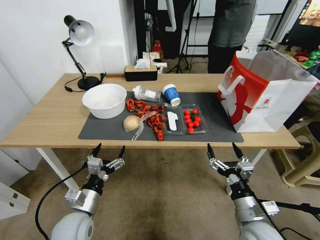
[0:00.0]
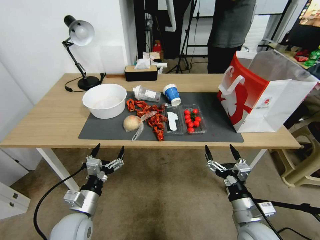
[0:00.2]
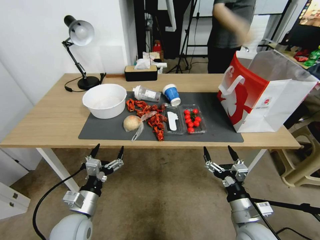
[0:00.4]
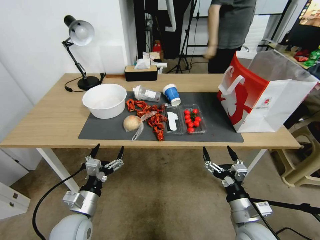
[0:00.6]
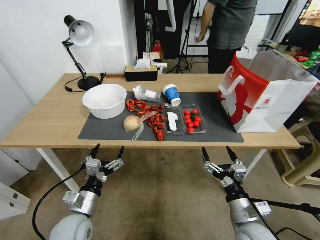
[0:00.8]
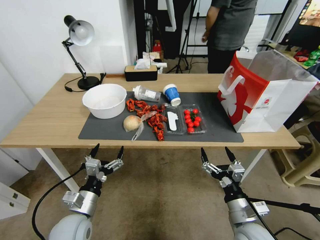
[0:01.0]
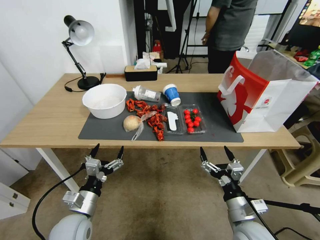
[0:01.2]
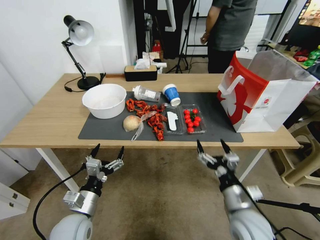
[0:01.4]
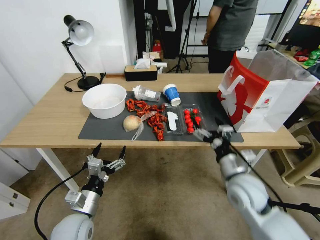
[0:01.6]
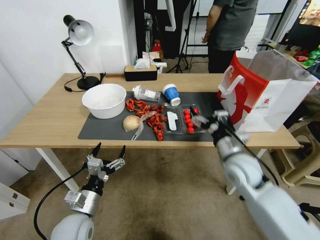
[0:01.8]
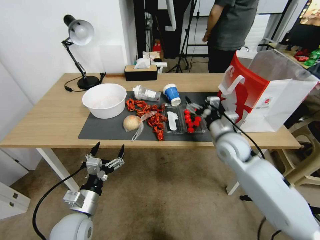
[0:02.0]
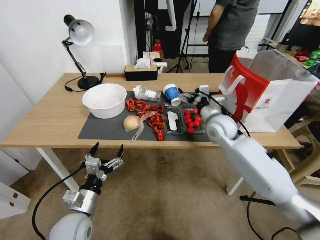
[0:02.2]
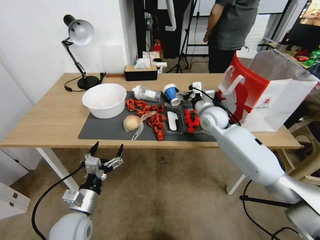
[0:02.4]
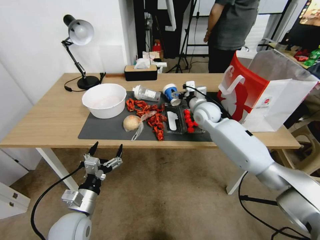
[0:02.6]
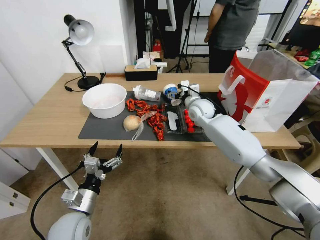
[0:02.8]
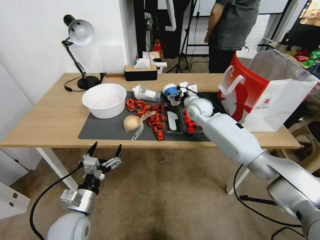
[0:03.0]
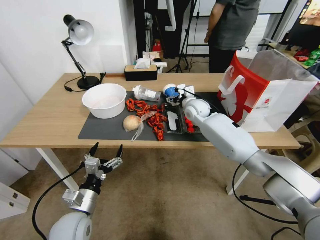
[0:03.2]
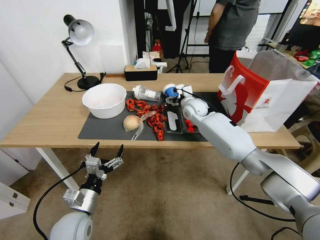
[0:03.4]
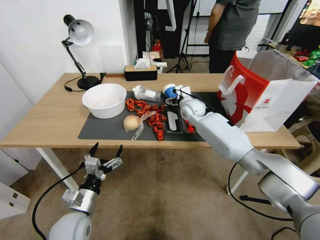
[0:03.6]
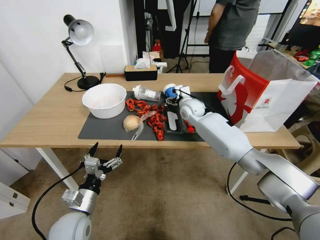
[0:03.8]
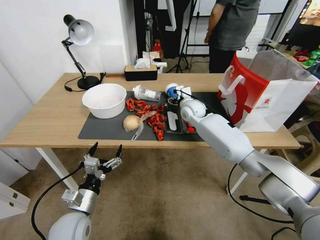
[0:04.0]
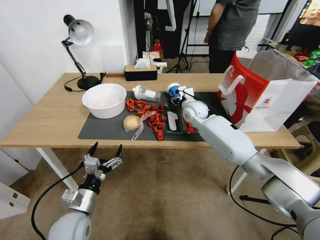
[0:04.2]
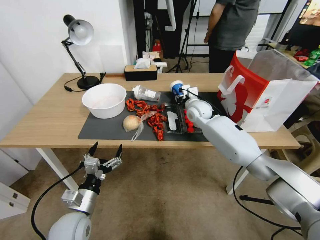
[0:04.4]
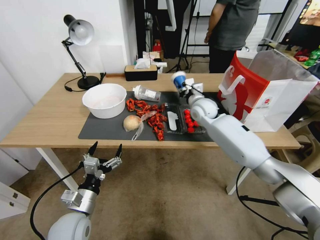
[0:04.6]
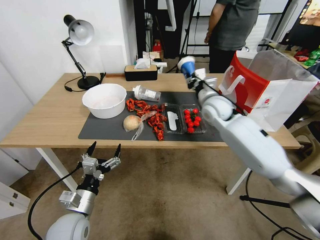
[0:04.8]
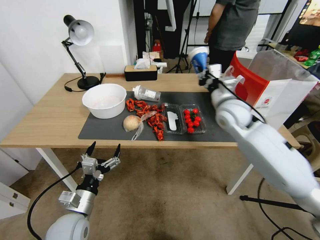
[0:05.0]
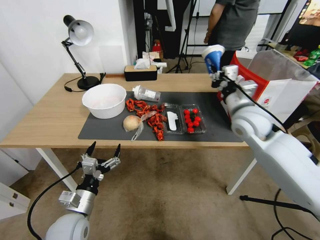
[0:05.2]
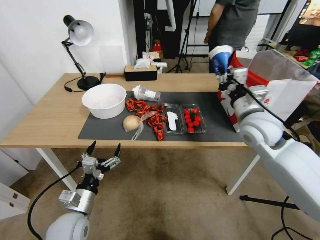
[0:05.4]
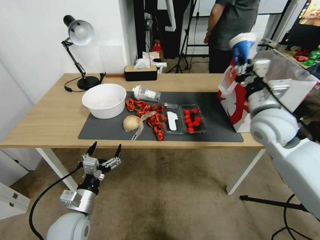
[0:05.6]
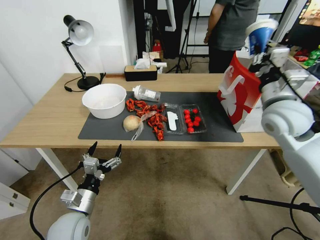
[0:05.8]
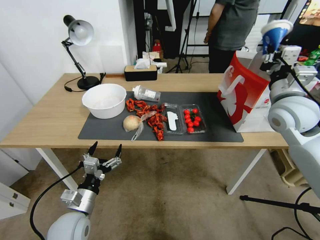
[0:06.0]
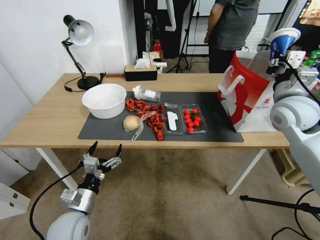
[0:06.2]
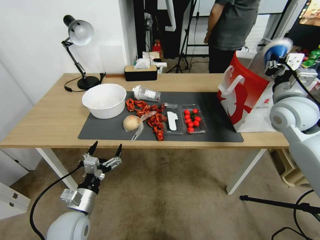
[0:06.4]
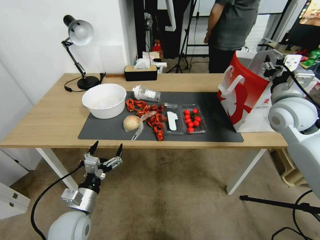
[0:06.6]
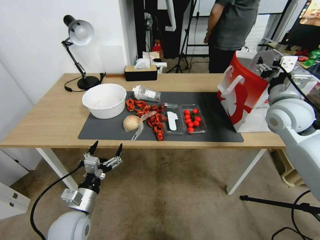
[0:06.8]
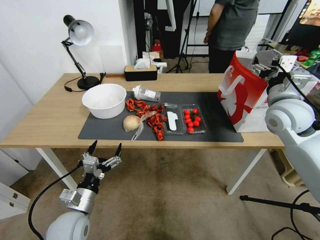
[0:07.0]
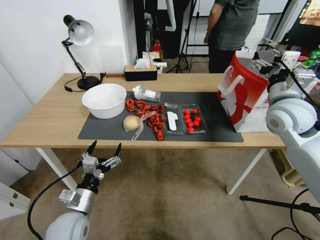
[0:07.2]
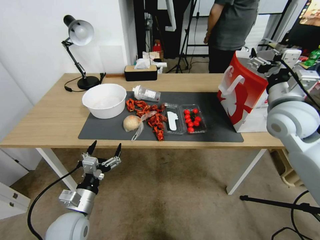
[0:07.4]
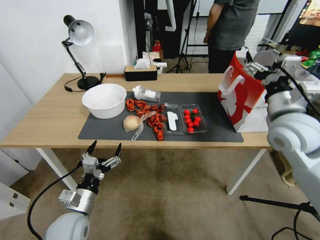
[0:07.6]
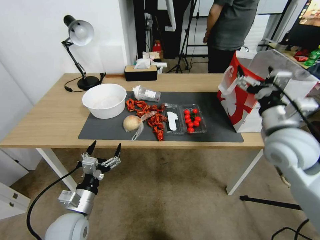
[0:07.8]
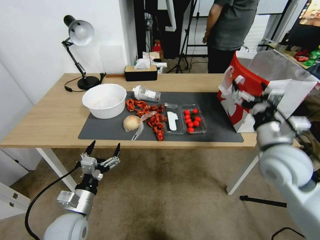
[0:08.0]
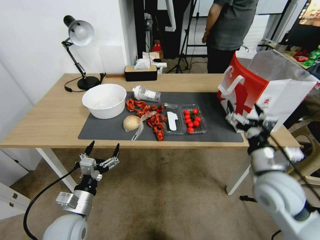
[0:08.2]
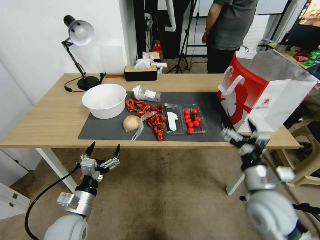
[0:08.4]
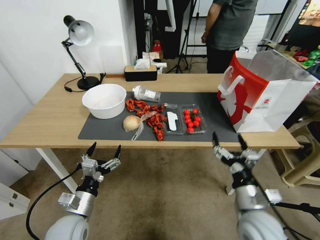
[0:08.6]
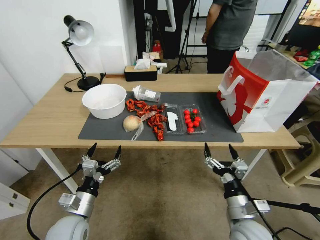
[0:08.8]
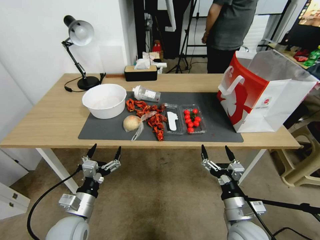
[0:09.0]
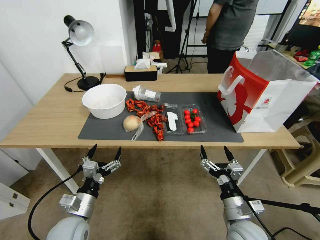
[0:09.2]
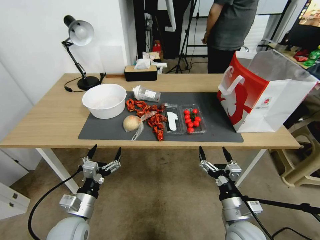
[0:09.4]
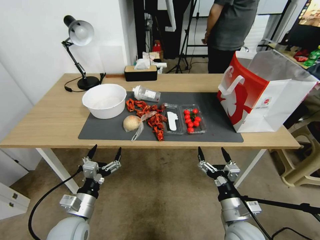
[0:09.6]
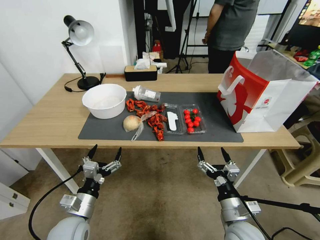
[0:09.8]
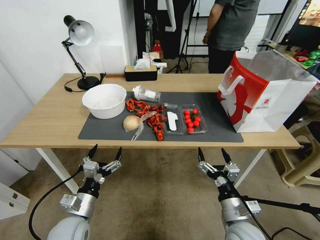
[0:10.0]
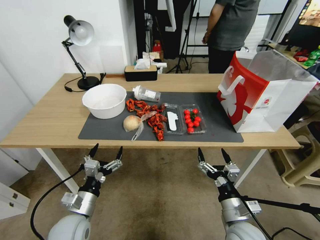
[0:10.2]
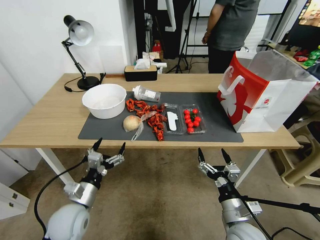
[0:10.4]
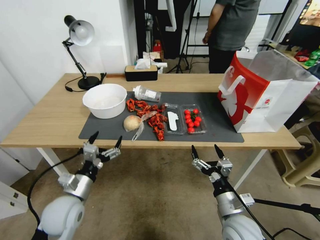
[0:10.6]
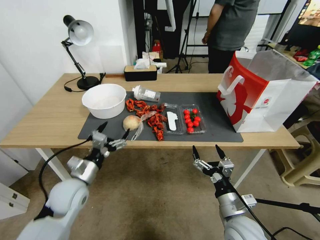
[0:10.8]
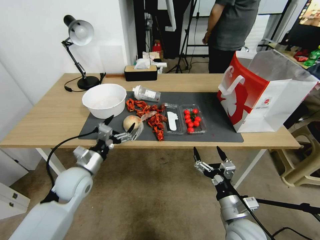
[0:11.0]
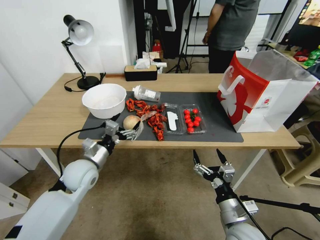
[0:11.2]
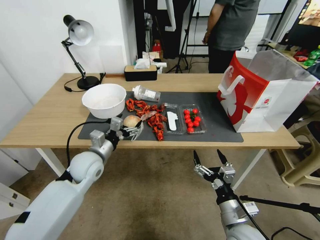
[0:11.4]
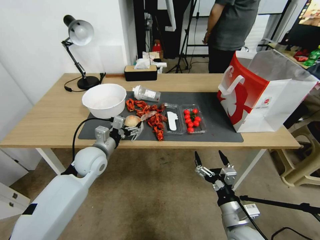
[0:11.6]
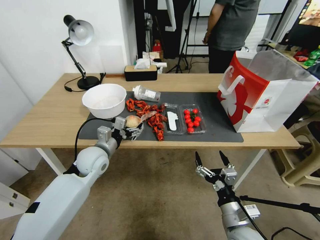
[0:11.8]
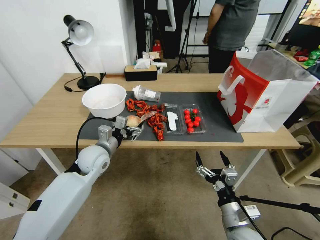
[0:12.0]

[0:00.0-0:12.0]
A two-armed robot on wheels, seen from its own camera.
0:00.0 to 0:01.6: The right gripper heads forward and upward, covering about 10 cm.
0:01.6 to 0:03.0: The right gripper shifts some 30 cm forward.
0:03.0 to 0:04.4: The right gripper closes.
0:04.4 to 0:06.0: The right gripper travels to the right, backward and upward by about 30 cm.
0:06.0 to 0:07.6: The right gripper is displaced backward by about 5 cm, and opens.
0:07.6 to 0:09.0: The right gripper goes roughly 30 cm downward and backward.
0:09.0 to 0:10.4: The grippers make only small movements.
0:10.4 to 0:12.0: The left gripper shifts about 15 cm forward.

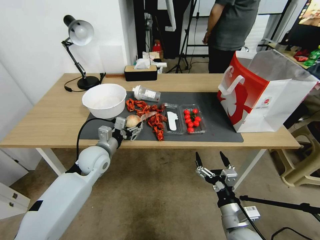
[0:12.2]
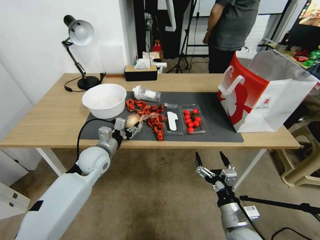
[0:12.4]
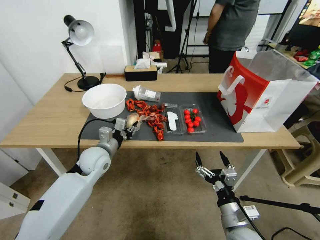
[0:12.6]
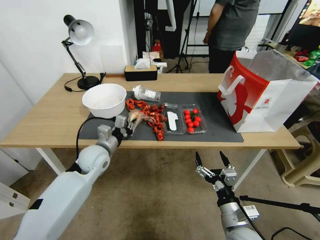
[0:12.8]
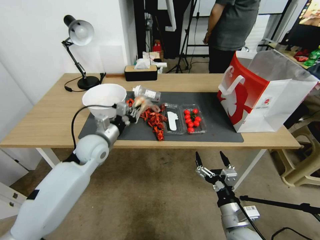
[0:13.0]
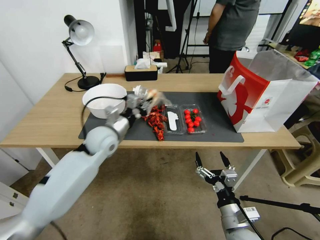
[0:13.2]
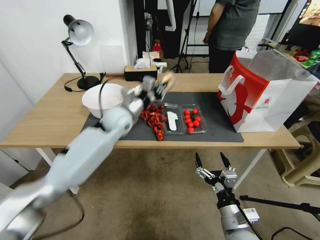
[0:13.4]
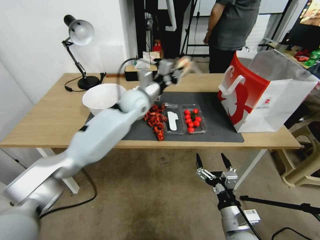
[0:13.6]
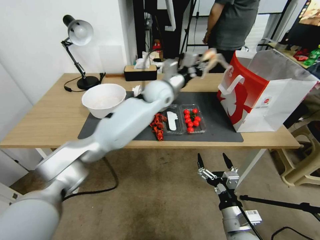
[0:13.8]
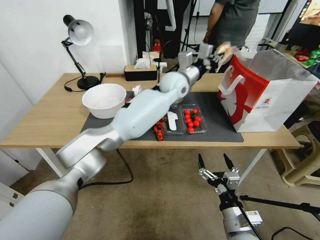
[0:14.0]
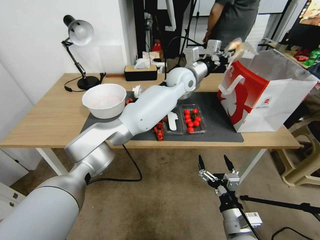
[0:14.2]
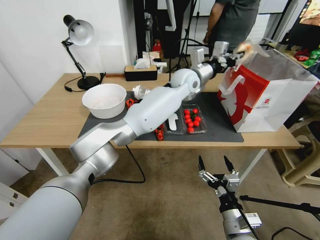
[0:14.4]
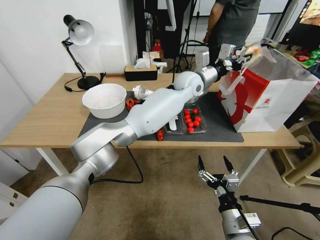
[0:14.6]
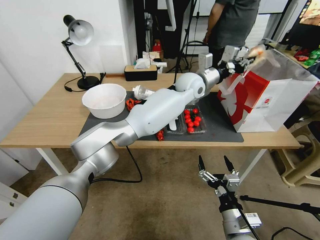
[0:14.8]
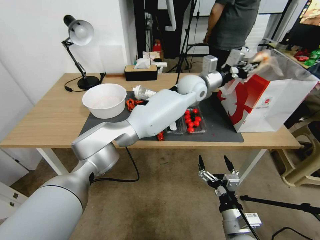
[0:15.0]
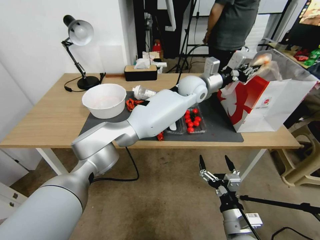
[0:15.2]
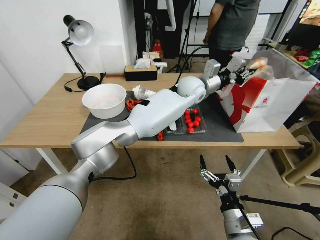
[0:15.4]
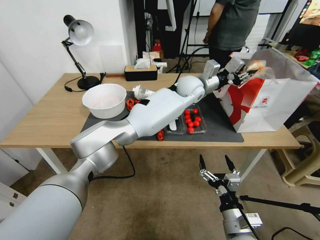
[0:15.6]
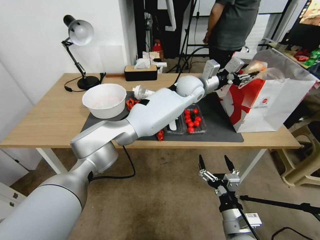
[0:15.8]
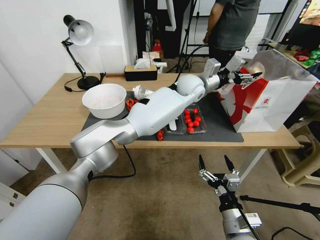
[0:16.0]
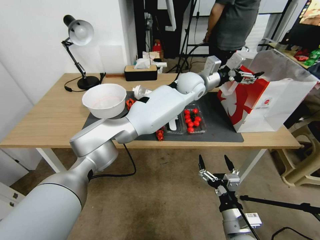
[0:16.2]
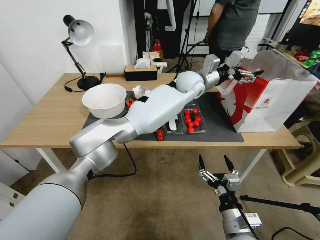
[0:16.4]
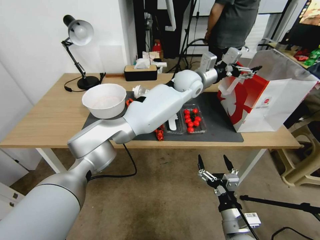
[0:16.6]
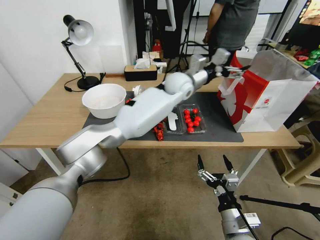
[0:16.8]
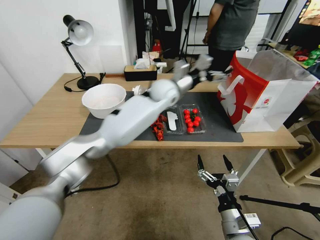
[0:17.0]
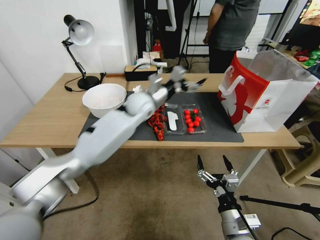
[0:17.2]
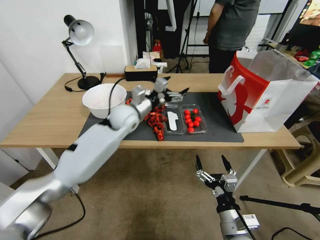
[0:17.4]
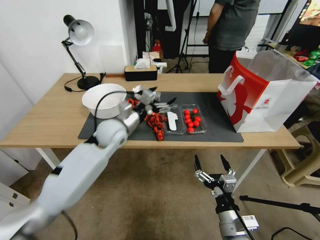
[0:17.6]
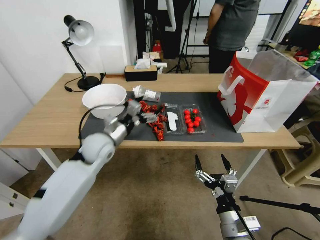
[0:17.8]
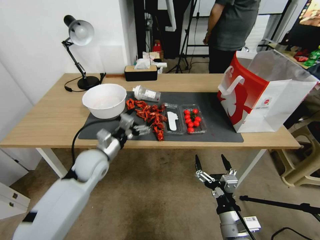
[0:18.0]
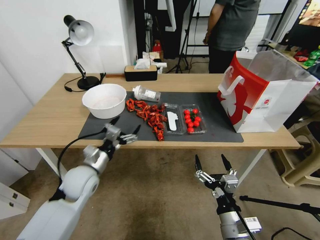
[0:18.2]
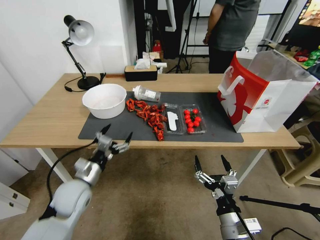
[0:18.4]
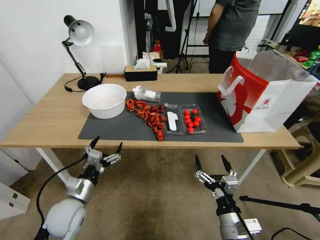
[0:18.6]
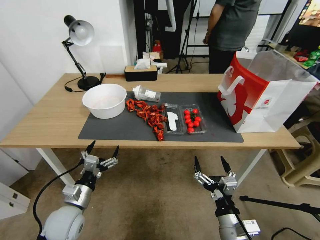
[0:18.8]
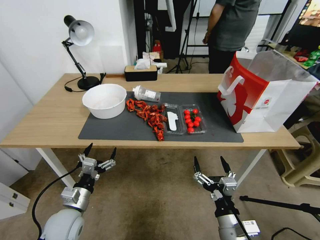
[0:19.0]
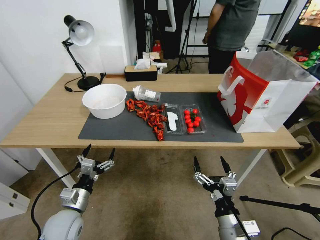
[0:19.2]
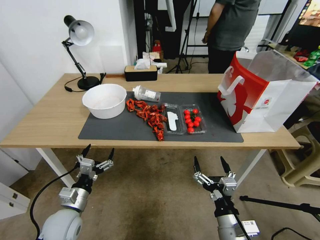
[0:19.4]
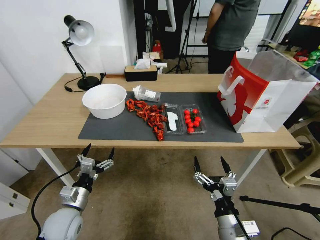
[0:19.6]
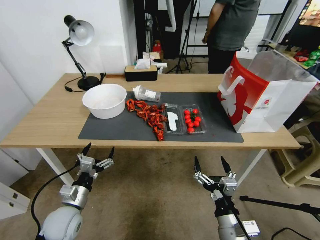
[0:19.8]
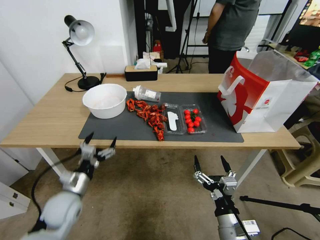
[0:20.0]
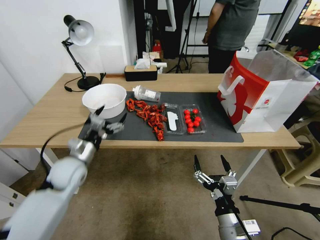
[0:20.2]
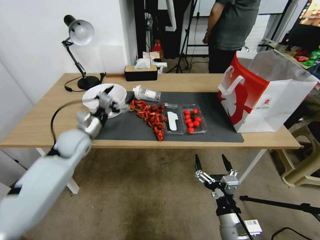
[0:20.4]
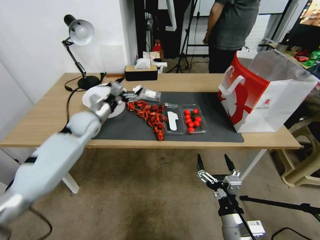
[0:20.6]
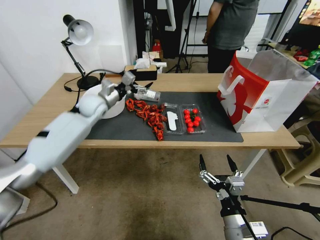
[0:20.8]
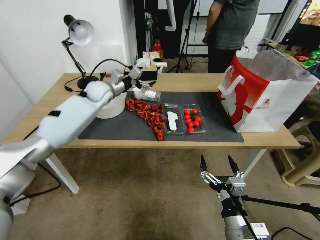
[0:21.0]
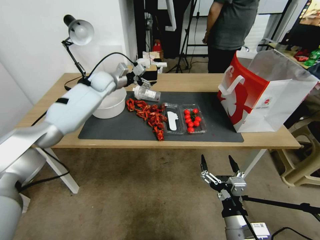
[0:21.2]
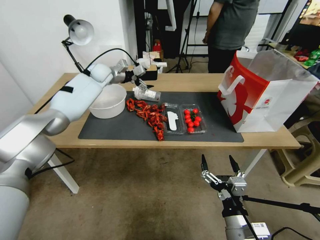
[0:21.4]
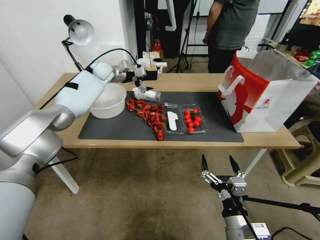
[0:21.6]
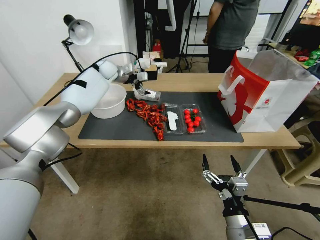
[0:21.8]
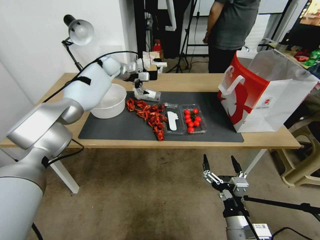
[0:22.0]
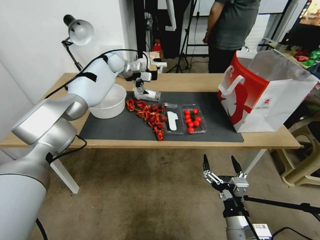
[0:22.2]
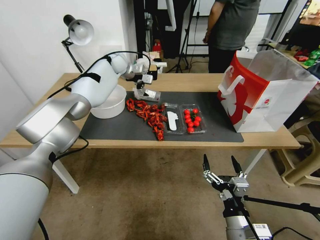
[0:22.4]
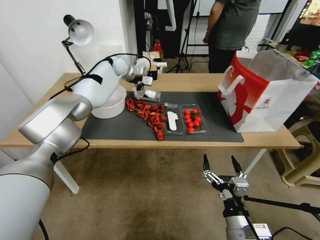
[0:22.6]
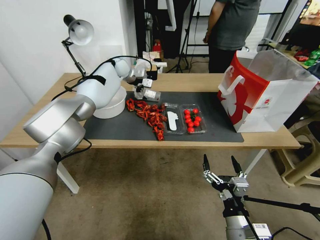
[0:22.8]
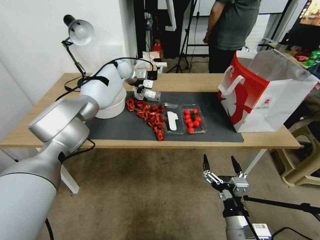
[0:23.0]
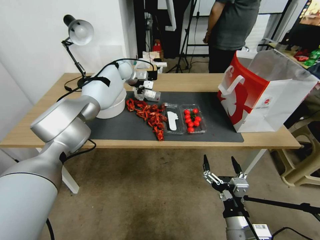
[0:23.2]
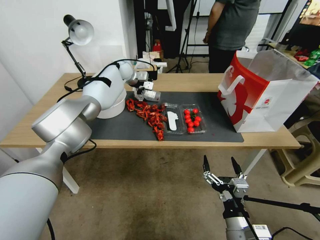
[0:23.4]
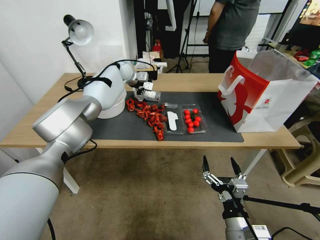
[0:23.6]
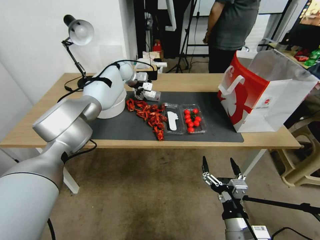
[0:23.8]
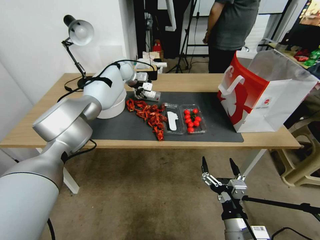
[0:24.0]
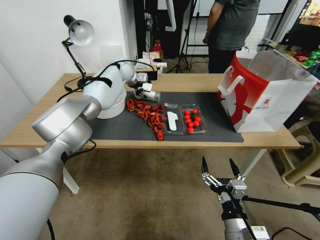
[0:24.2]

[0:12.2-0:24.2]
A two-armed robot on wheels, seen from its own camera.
0:12.2 to 0:13.8: The left gripper shifts roughly 30 cm to the right, upward and forward, and closes its fingers.
0:13.8 to 0:15.2: The left gripper shifts about 10 cm to the right.
0:15.2 to 0:16.6: The left gripper opens.
0:16.6 to 0:18.2: The left gripper is displaced to the left, backward and downward by some 50 cm.
0:18.2 to 0:19.8: The left gripper shifts approximately 10 cm backward and downward.
0:19.8 to 0:21.2: The left gripper heads forward and upward, covering some 50 cm.
0:21.2 to 0:22.6: The left gripper shifts roughly 10 cm forward and to the right.
0:22.6 to 0:24.2: The left gripper closes.
